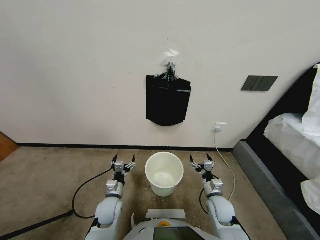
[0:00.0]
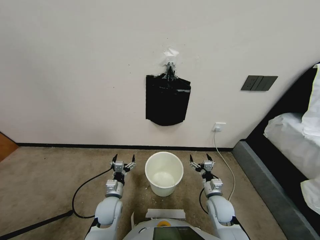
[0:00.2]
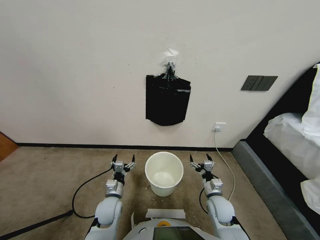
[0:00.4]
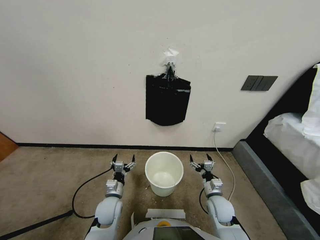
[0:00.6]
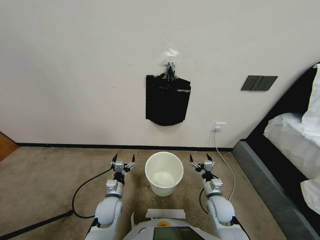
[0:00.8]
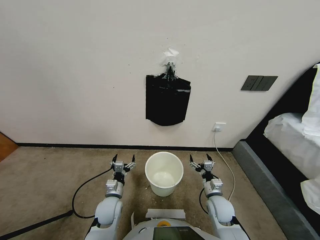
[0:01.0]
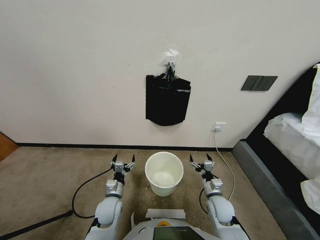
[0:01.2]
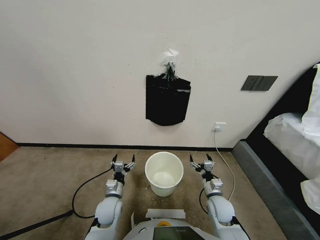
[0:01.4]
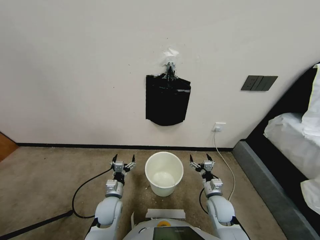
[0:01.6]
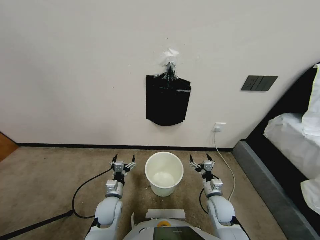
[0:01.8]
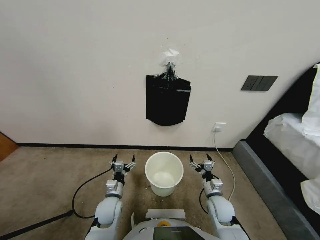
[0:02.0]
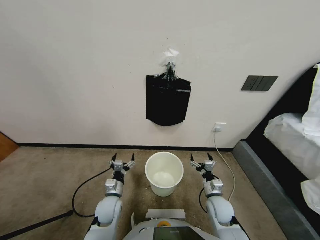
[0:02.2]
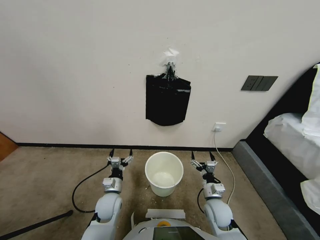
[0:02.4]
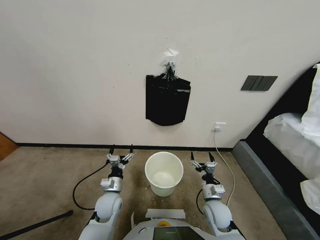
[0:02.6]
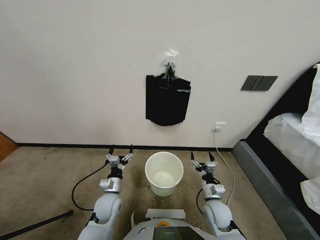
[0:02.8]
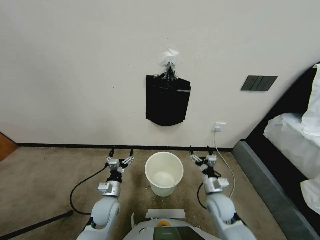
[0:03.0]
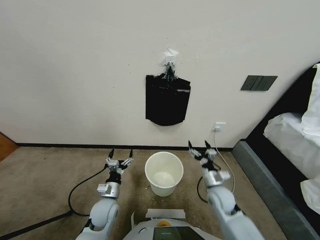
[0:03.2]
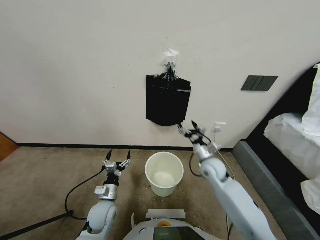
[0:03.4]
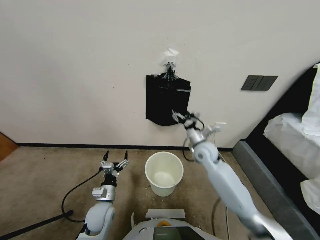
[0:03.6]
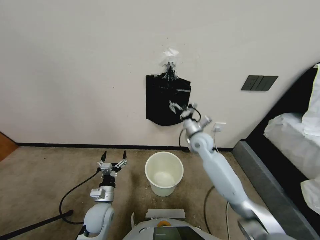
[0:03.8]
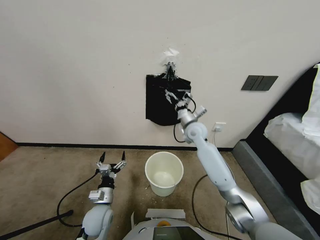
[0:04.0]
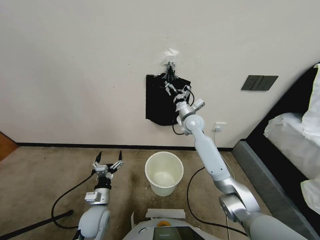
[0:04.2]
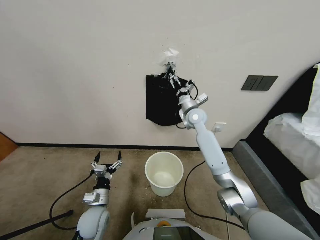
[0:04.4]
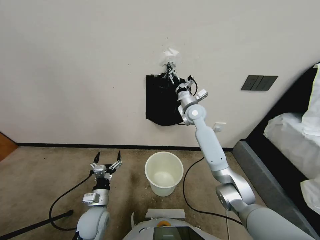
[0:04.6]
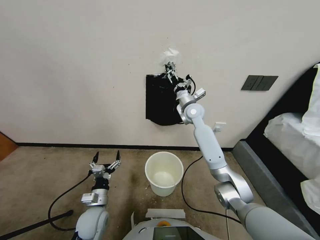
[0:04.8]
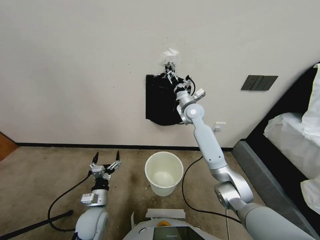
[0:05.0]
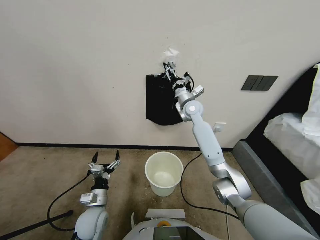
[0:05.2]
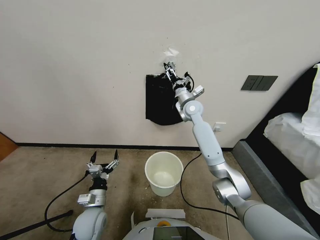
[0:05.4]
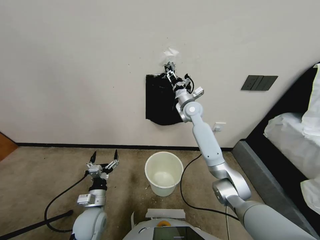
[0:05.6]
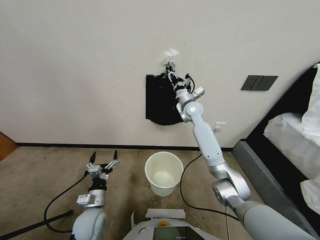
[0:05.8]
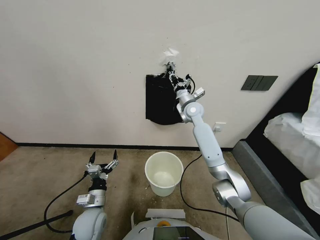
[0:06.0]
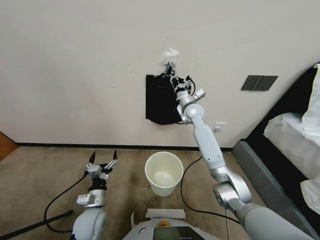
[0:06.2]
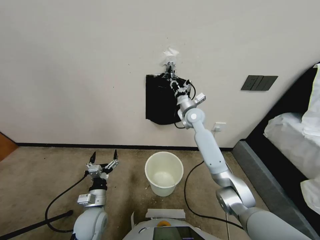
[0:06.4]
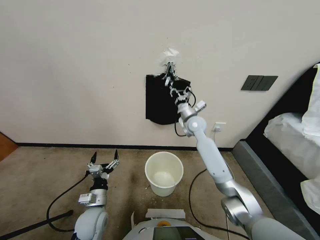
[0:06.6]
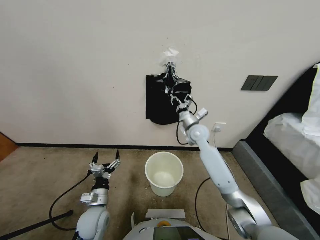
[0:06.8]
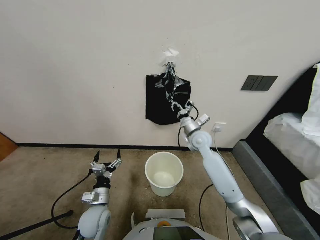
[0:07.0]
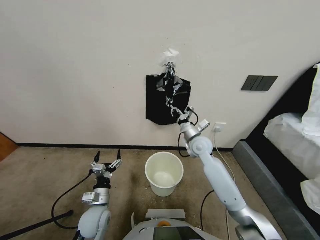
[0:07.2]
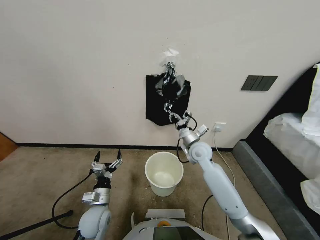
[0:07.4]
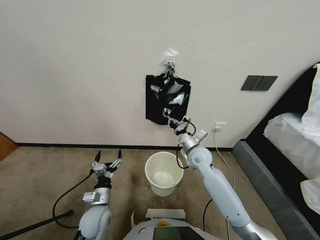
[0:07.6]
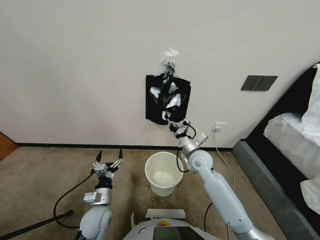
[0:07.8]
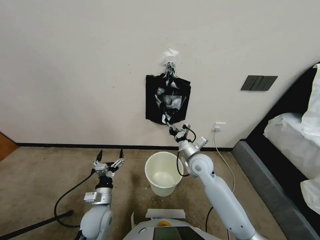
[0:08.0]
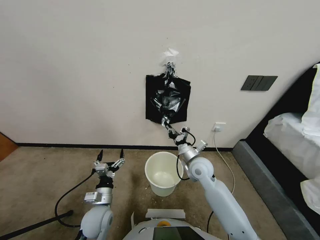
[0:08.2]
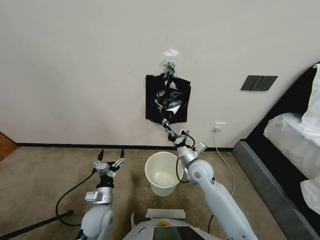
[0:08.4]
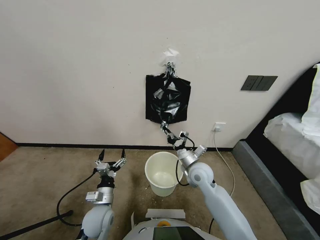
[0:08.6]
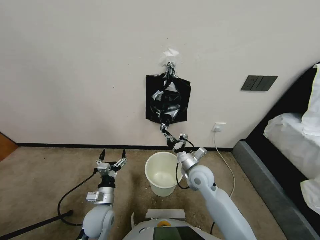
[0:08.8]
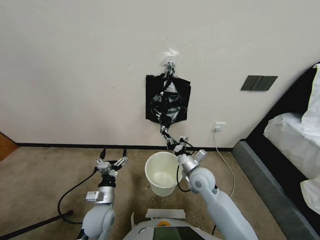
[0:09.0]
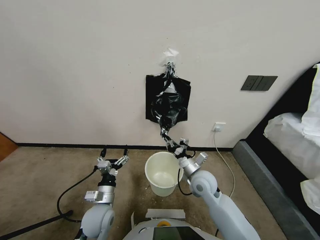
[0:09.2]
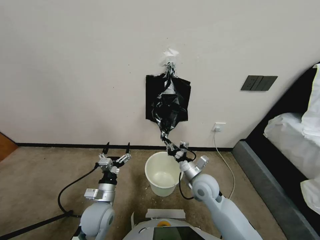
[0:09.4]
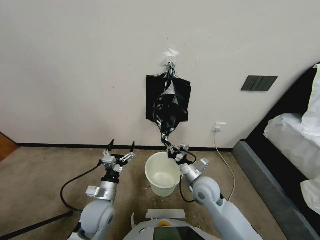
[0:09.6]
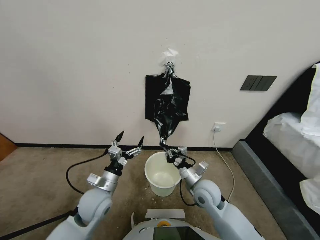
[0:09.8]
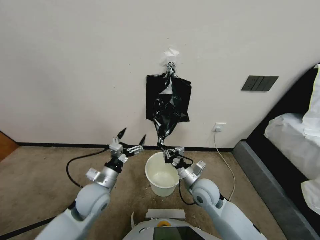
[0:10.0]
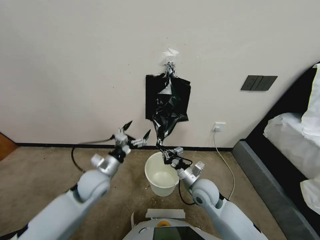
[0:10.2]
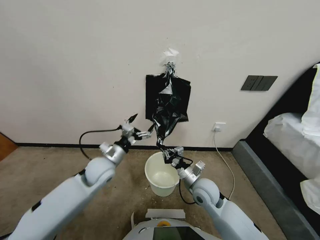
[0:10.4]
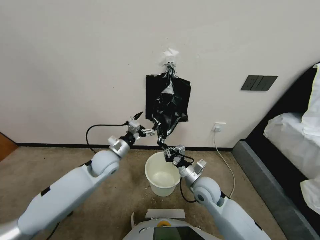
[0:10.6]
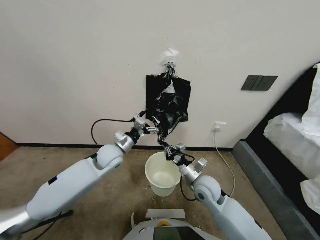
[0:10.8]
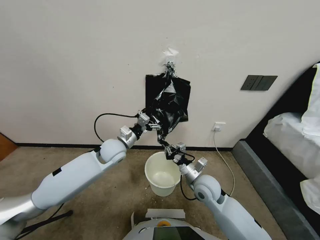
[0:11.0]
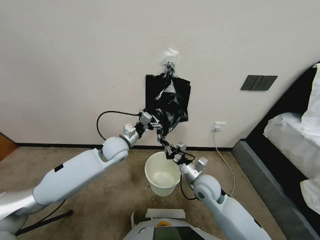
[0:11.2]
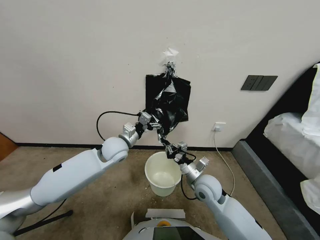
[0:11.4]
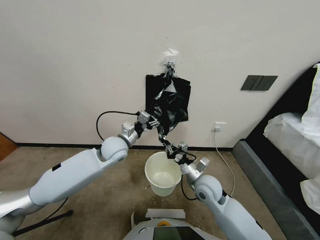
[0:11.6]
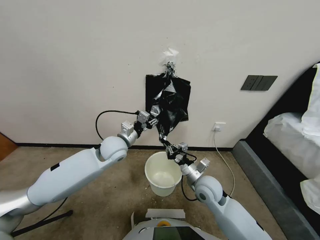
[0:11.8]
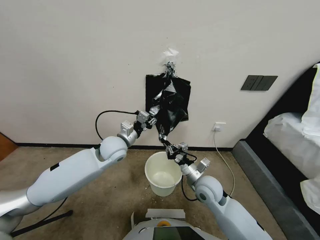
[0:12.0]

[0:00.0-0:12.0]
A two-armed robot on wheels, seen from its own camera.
Task of the whole recording: Place a trash bag onto the trash bin.
0:01.6 to 0:03.0: The grippers stay close to where they were, moving slightly.
0:03.0 to 0:04.4: The right gripper shifts about 35 cm forward and upward.
0:04.4 to 0:06.0: The right gripper closes.
0:06.0 to 0:07.6: The right gripper heads backward and downward, covering about 20 cm.
0:07.6 to 0:09.0: The right gripper heads backward, covering roughly 10 cm.
0:09.0 to 0:10.4: The left gripper travels forward and upward by some 20 cm.
0:10.4 to 0:12.0: The left gripper moves upward, some 5 cm, and closes its fingers.

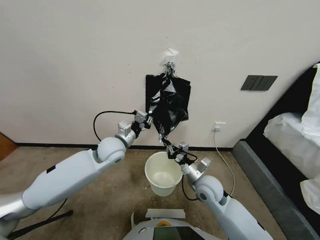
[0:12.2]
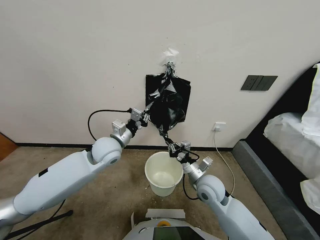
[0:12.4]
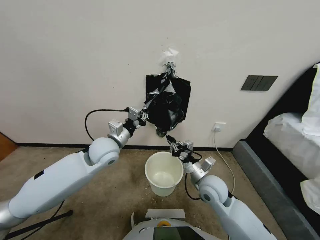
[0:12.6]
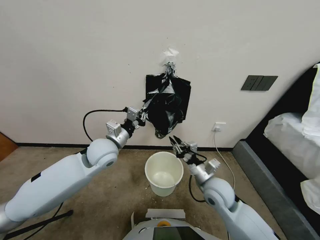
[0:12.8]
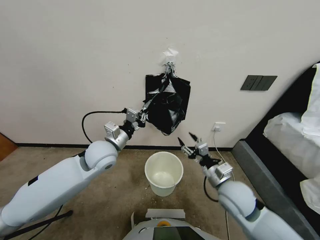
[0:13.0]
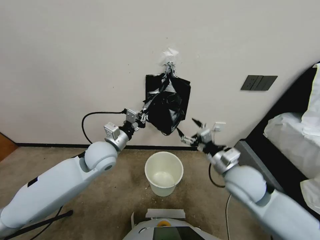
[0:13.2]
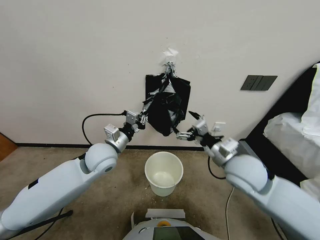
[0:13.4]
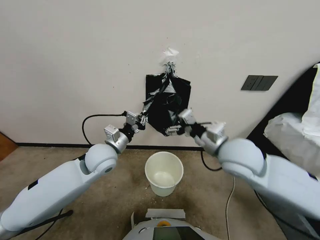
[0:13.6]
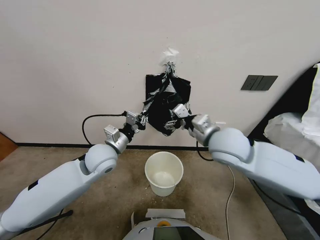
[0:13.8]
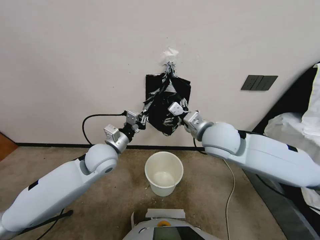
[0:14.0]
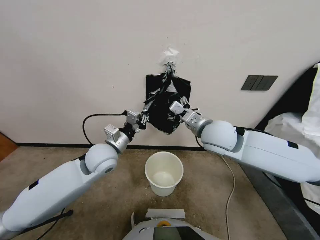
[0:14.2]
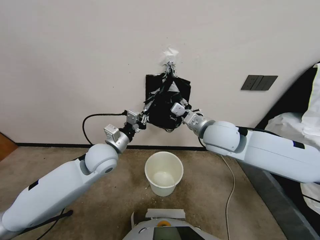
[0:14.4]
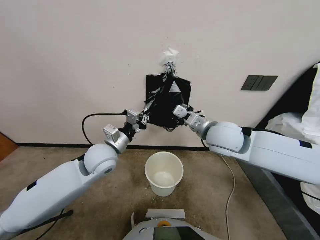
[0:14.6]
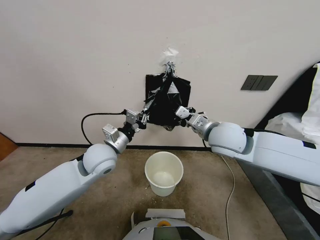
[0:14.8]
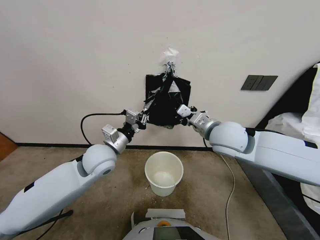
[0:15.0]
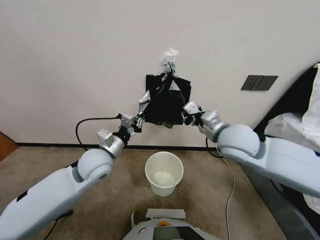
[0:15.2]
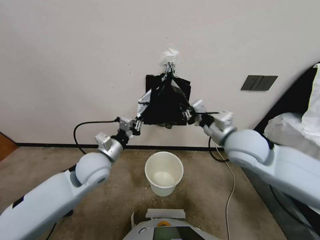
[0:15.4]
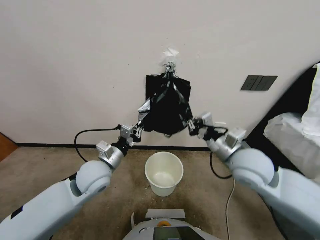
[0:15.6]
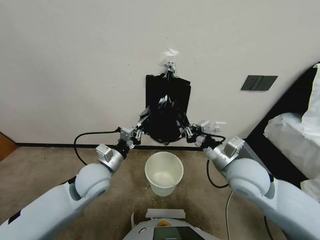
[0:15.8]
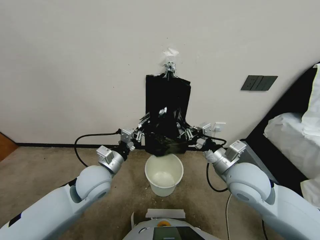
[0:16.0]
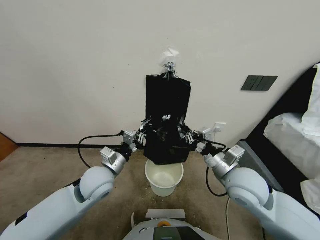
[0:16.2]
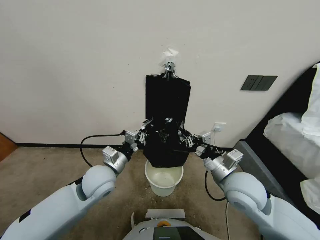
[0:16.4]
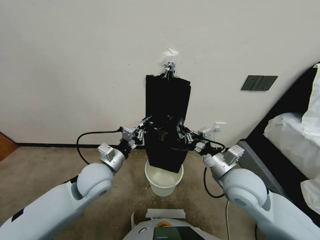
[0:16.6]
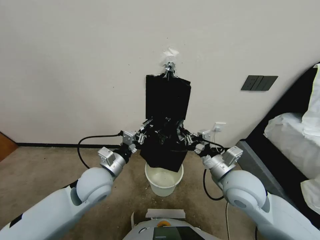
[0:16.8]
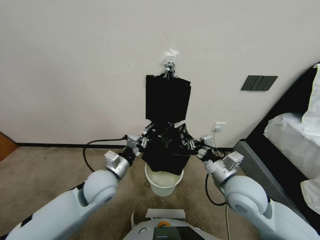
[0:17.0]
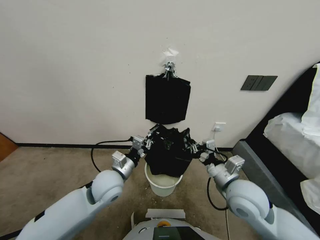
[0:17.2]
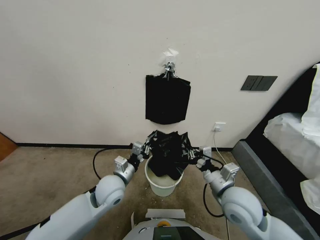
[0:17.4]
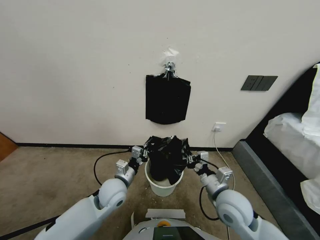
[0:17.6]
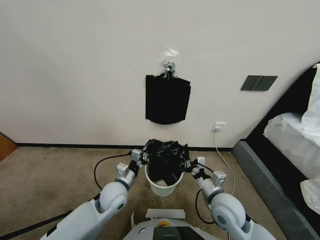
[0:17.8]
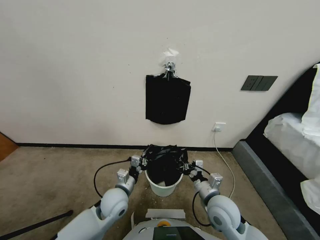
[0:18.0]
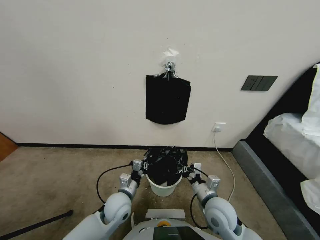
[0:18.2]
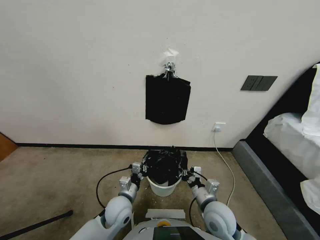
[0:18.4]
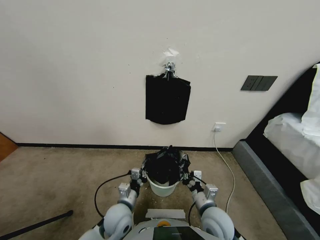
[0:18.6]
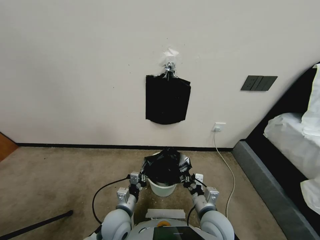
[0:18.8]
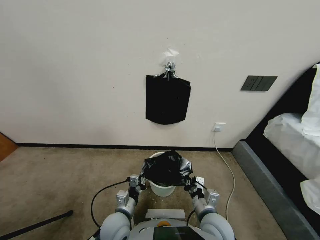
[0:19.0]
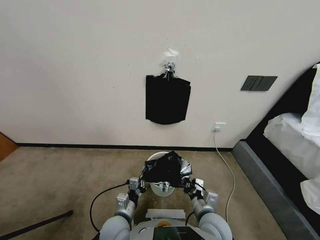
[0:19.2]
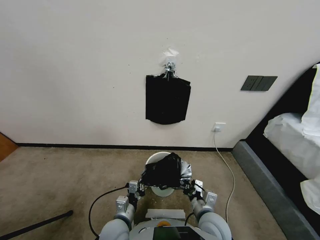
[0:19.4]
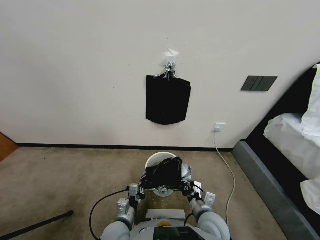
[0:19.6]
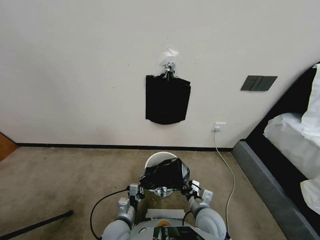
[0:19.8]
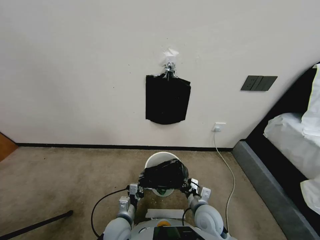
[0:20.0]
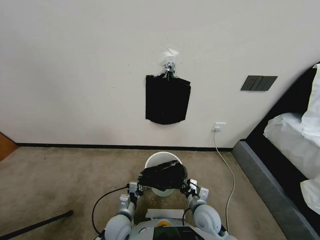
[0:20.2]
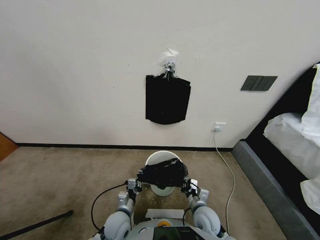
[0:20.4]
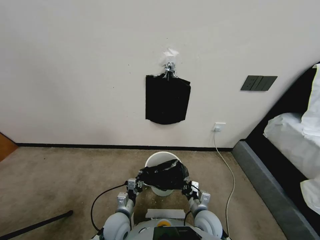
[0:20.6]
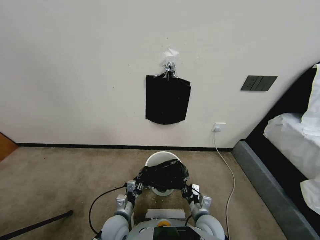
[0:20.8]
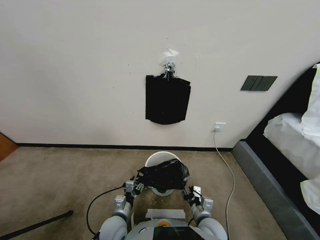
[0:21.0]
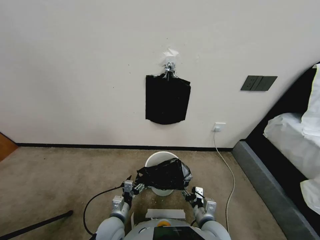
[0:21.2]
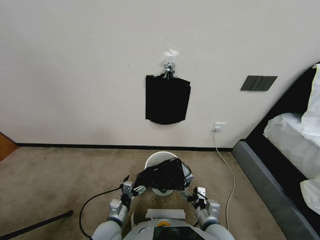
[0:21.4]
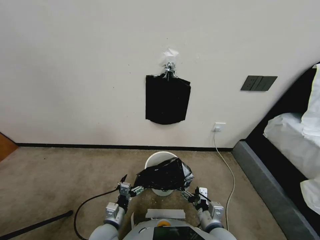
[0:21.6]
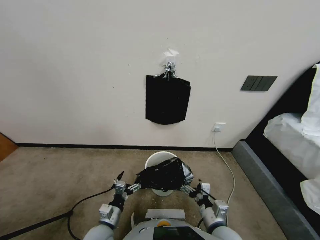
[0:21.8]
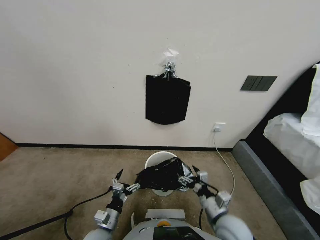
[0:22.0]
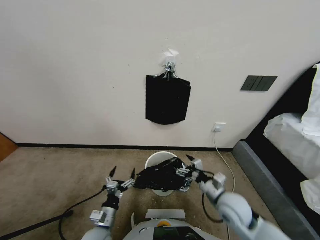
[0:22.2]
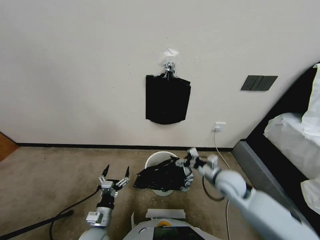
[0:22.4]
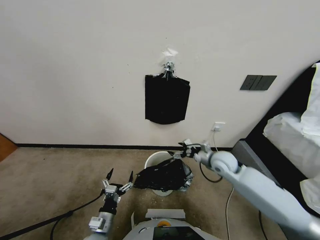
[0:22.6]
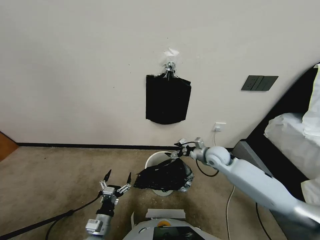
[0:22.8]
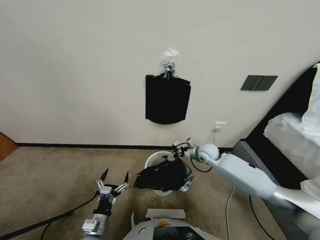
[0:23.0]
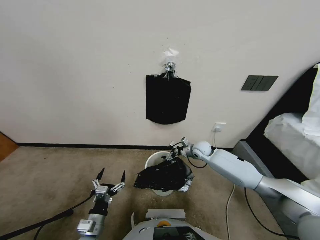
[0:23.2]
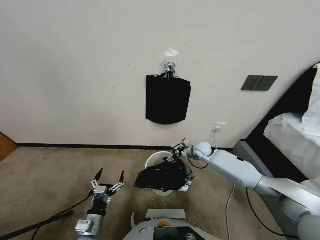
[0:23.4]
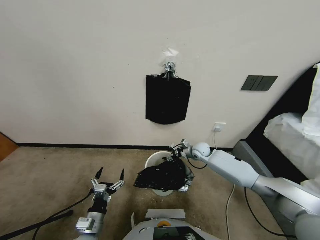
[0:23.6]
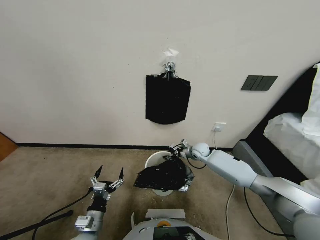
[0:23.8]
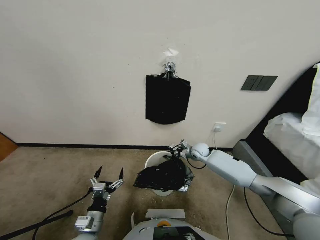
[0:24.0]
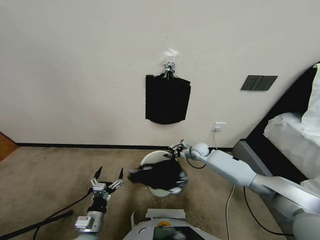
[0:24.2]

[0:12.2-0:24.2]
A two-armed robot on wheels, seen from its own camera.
Task of the whole recording: Place a trash bag onto the trash bin.
0:12.2 to 0:13.8: The right gripper moves upward, approximately 20 cm, and opens up.
0:13.8 to 0:15.2: The right gripper moves to the right, roughly 5 cm, and closes.
0:15.2 to 0:16.6: The right gripper heads downward and backward, covering roughly 10 cm.
0:16.6 to 0:18.2: Both grippers move downward, roughly 15 cm.
0:18.2 to 0:19.8: The left gripper moves backward and downward, about 10 cm. The right gripper goes some 5 cm downward.
0:19.8 to 0:21.2: The right gripper is displaced backward by approximately 5 cm, and opens. Meanwhile the left gripper opens its fingers.
0:21.2 to 0:22.6: The left gripper shifts by approximately 5 cm, while the right gripper is displaced forward by some 25 cm.
0:22.6 to 0:24.2: The right gripper travels forward and downward by some 15 cm, and closes.
